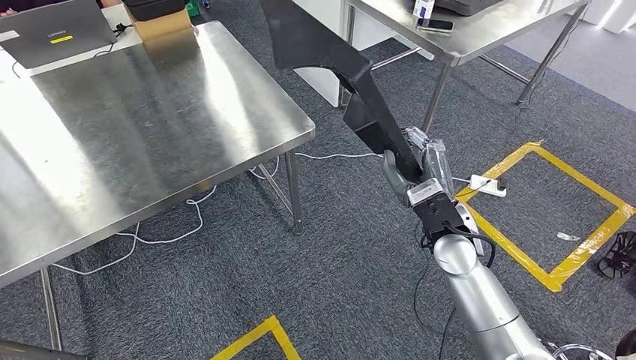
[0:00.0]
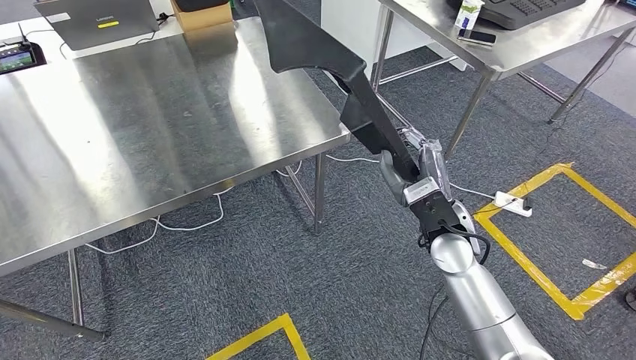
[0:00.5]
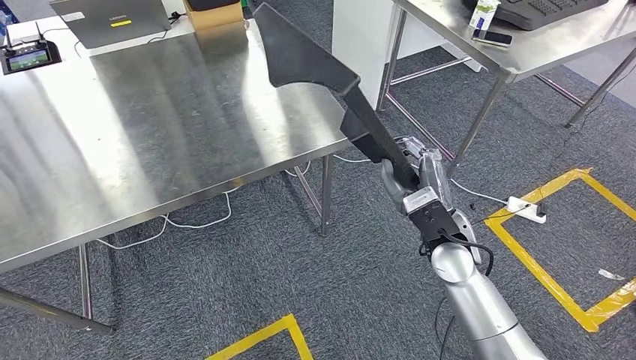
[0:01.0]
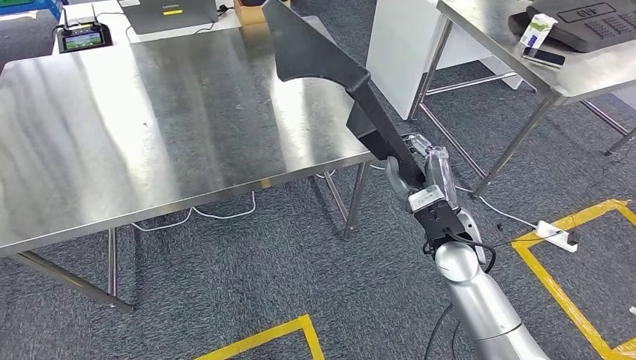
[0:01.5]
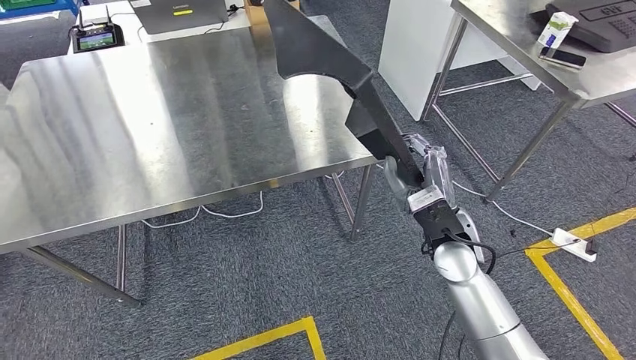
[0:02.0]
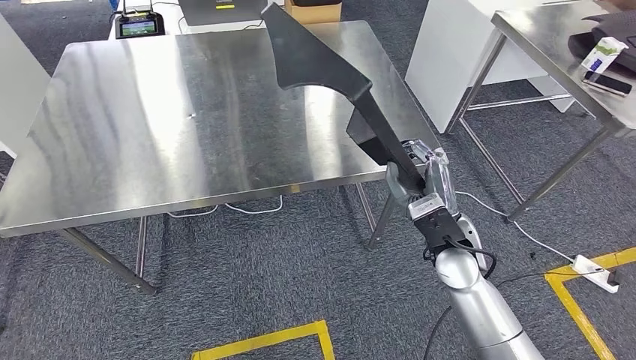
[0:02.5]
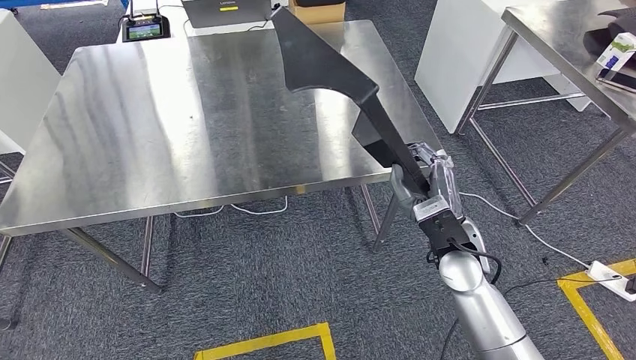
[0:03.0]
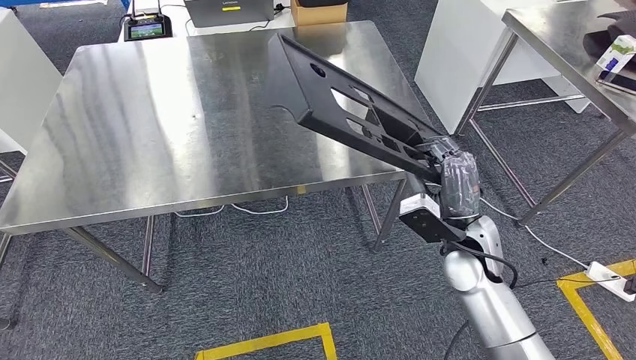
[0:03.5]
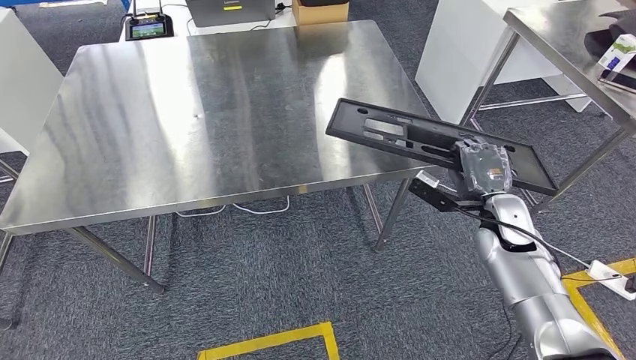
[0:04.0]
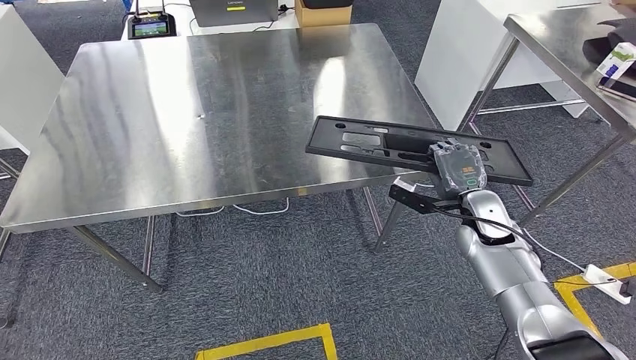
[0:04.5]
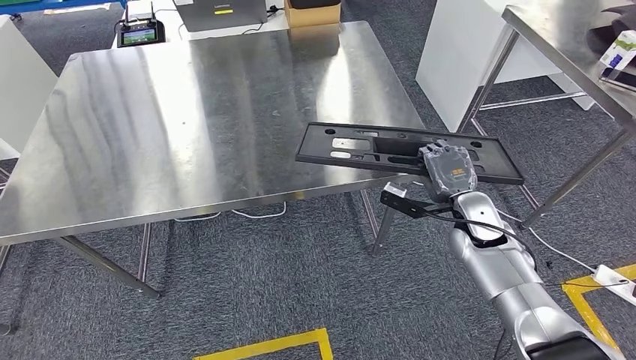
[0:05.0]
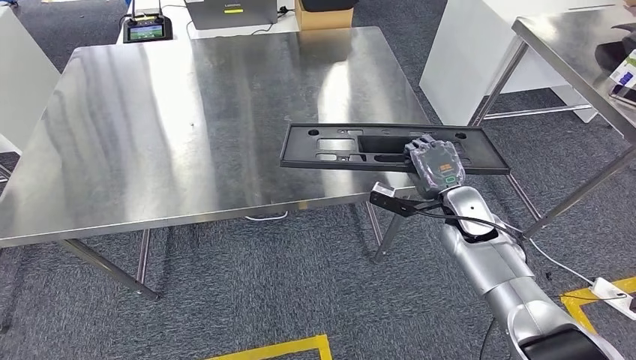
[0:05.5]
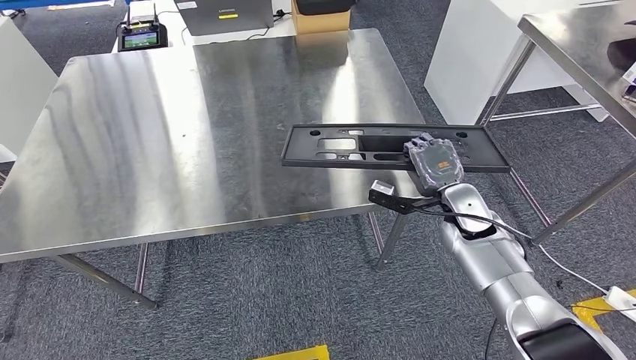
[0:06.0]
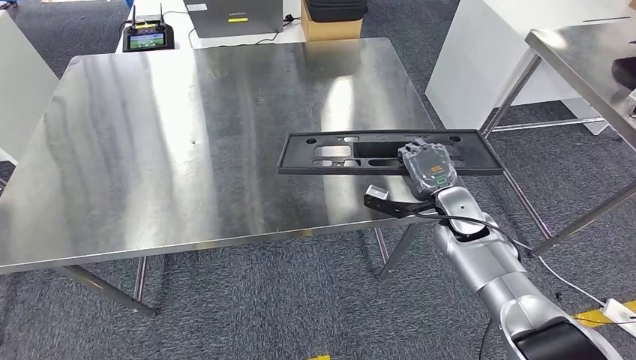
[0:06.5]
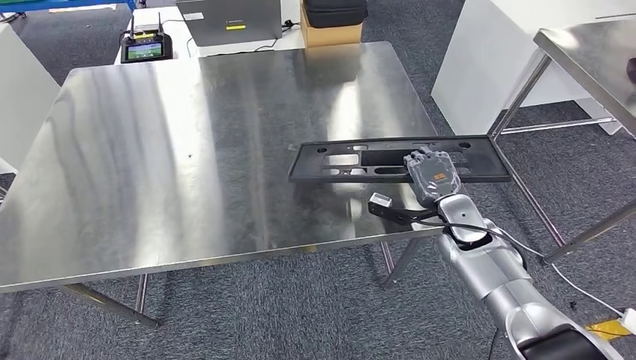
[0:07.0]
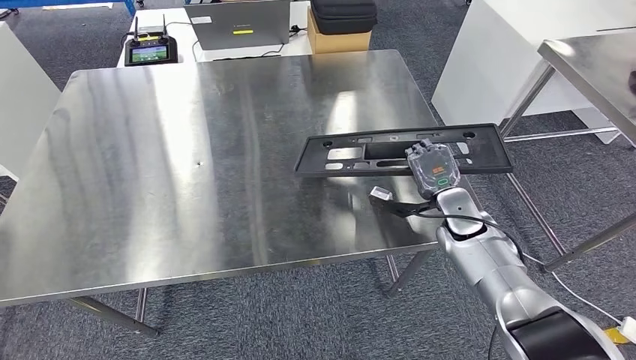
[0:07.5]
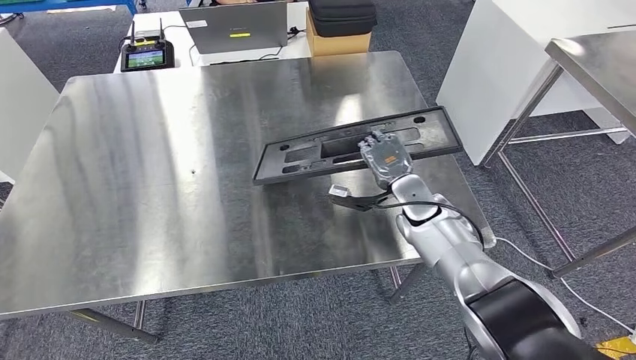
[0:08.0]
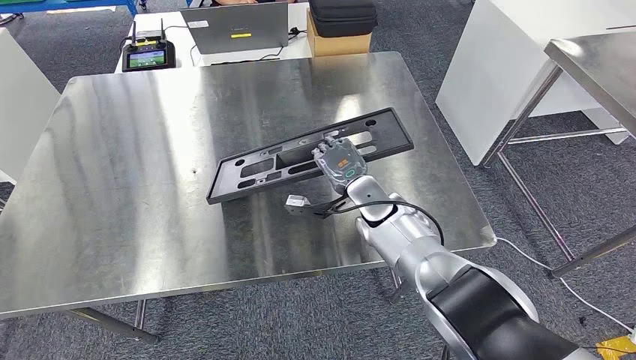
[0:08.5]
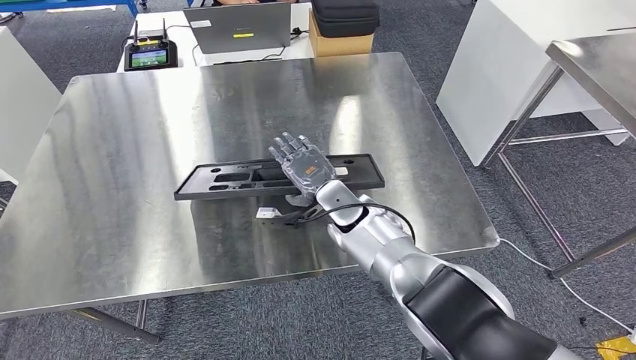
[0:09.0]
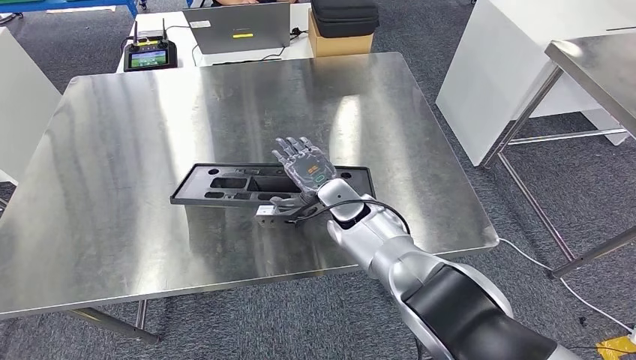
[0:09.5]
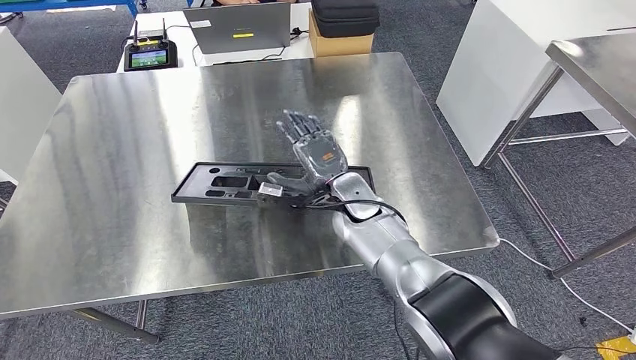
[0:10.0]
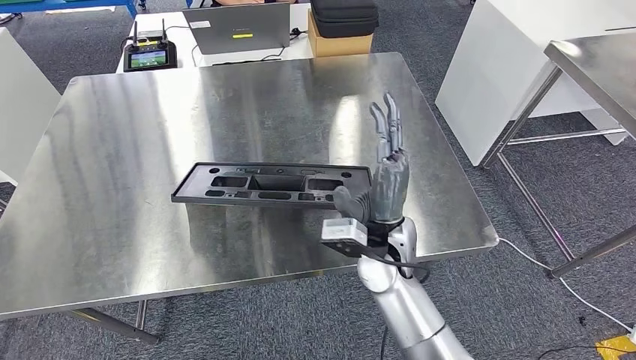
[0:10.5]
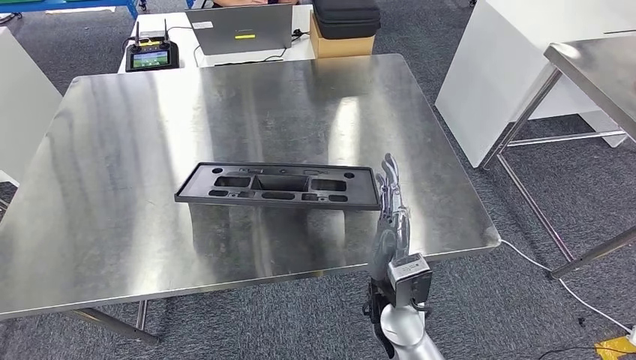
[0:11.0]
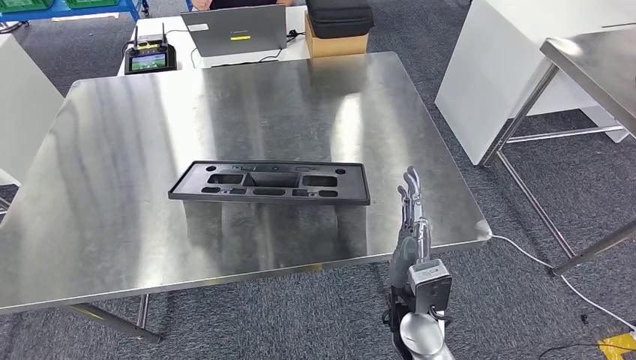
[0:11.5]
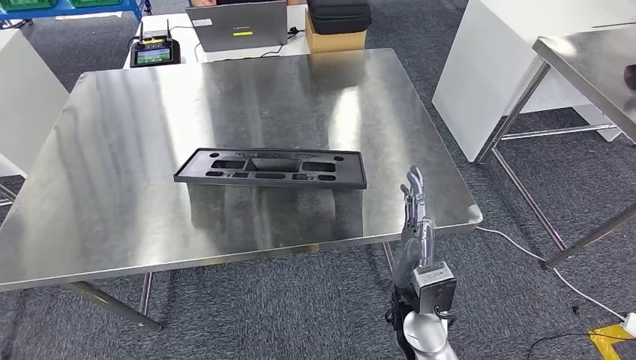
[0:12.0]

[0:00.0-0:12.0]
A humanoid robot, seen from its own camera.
0:08.0 to 0:10.0: The right hand heads to the left, covering some 15 cm.

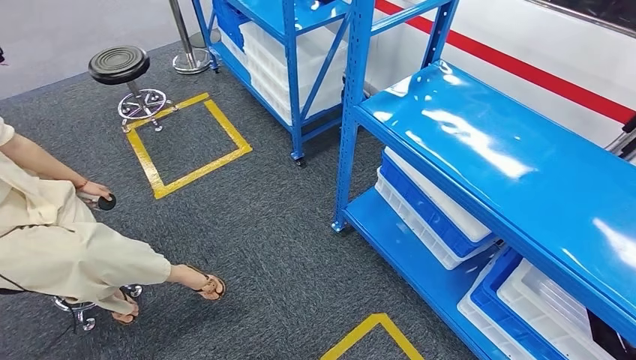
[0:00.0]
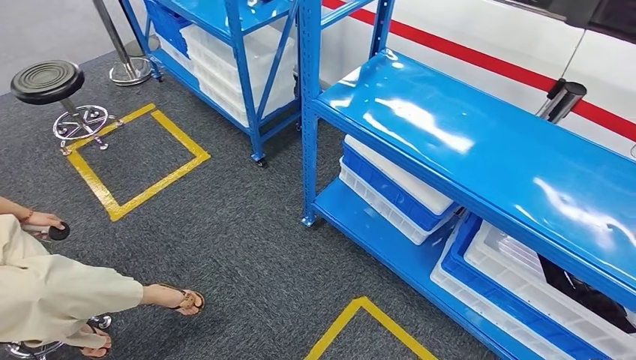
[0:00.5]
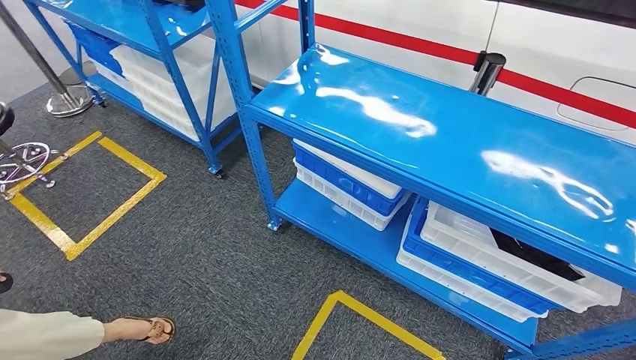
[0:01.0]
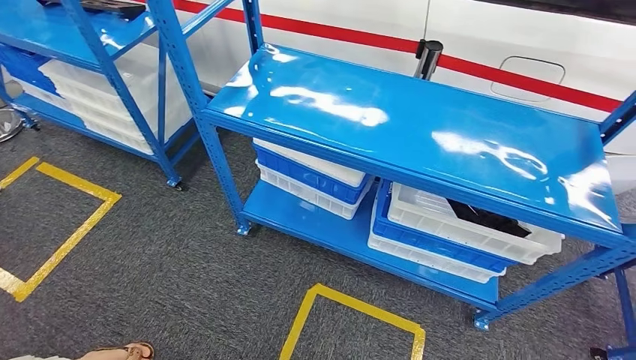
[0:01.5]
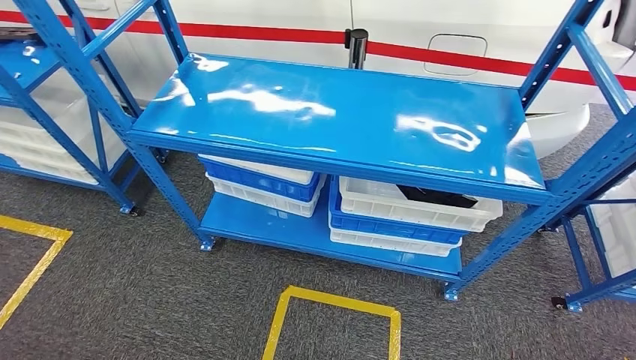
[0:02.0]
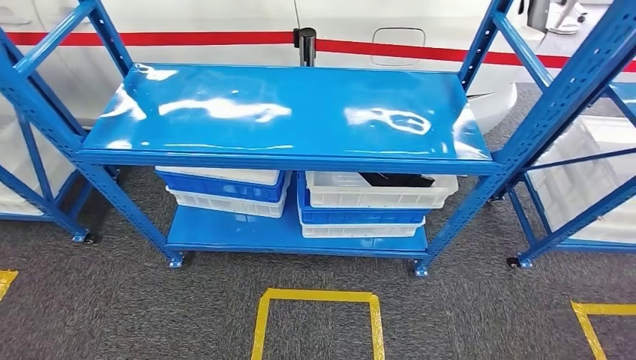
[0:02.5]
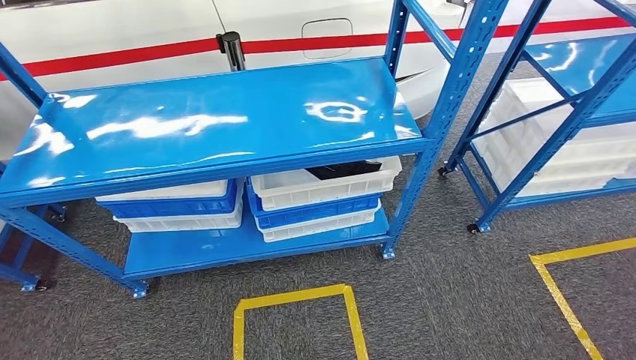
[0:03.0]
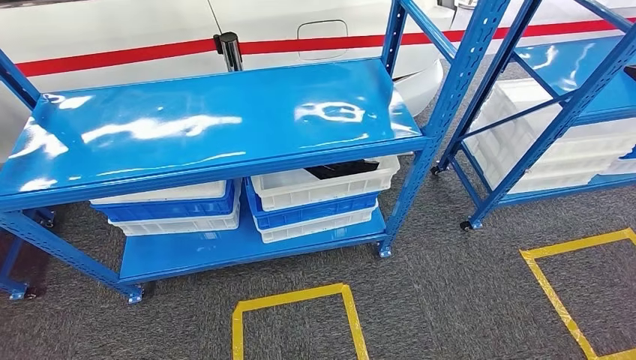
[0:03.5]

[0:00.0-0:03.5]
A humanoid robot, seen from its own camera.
Step, 0:00.0 to 0:03.5: Move to the initial position of the shelf.
